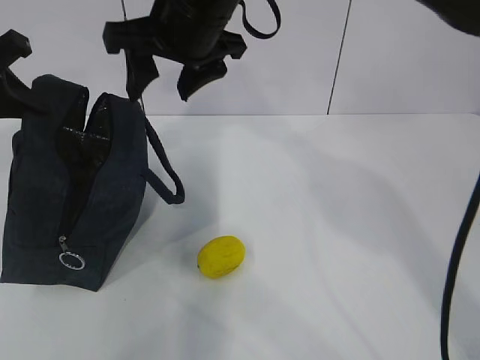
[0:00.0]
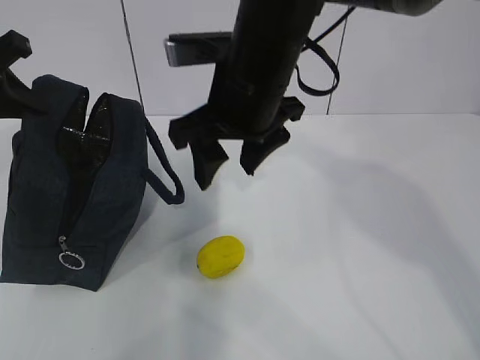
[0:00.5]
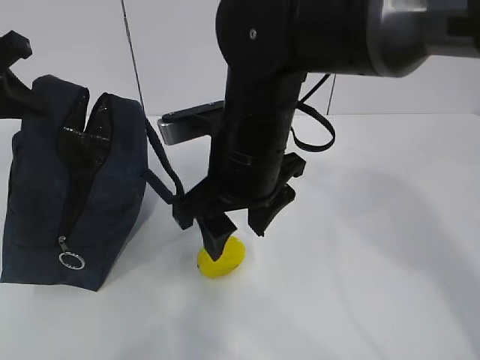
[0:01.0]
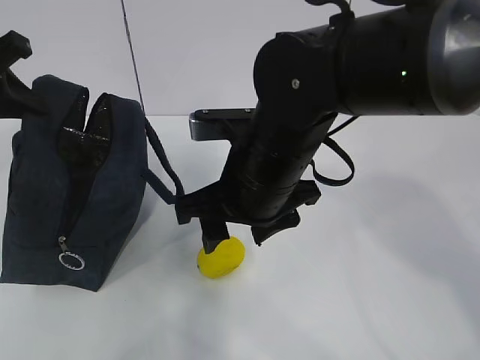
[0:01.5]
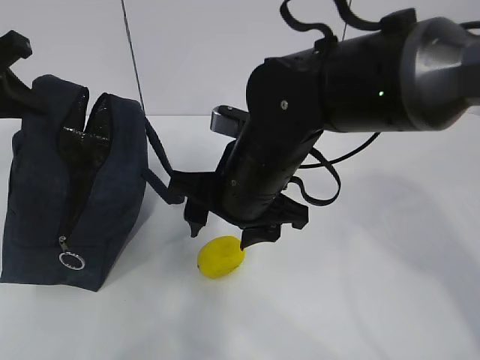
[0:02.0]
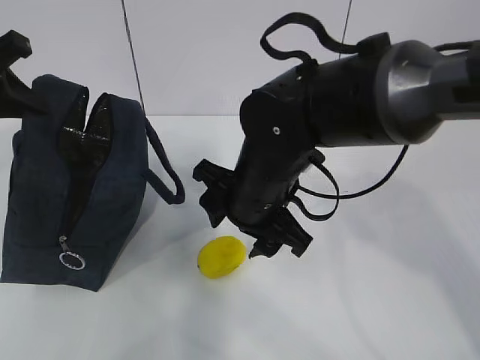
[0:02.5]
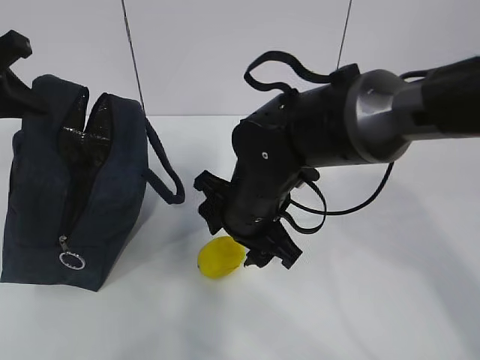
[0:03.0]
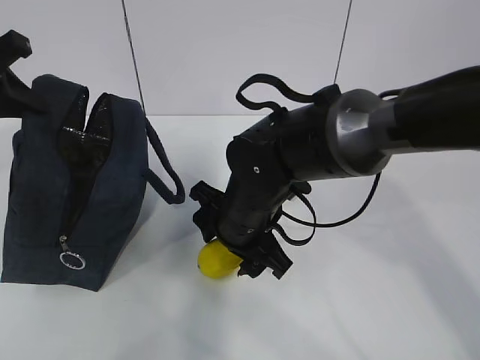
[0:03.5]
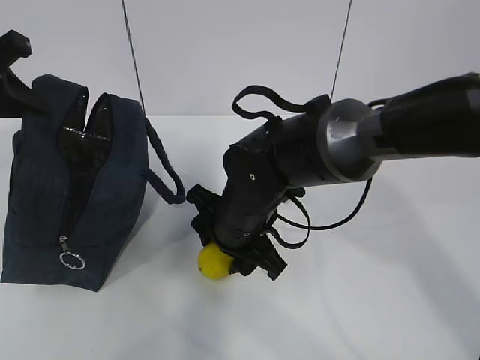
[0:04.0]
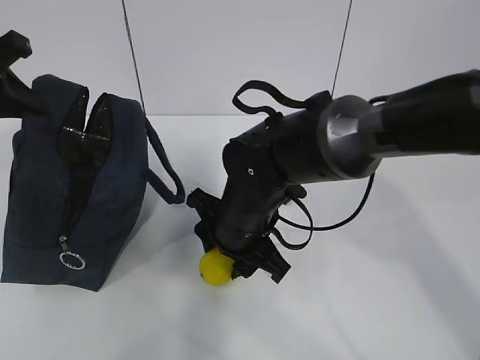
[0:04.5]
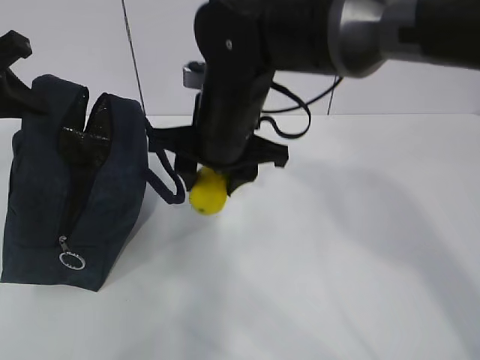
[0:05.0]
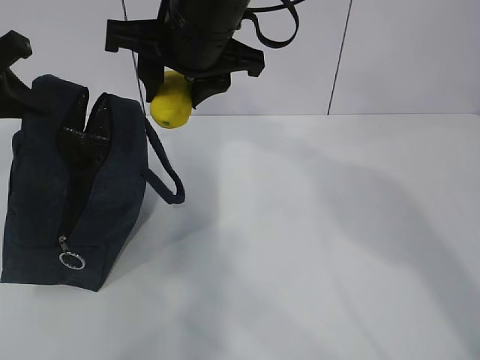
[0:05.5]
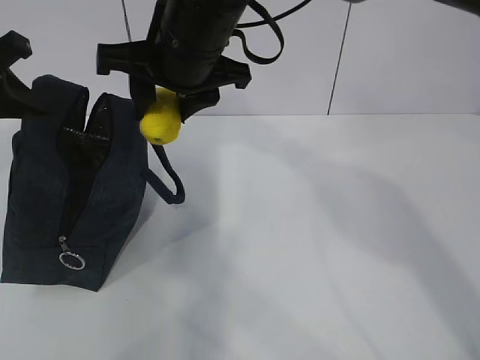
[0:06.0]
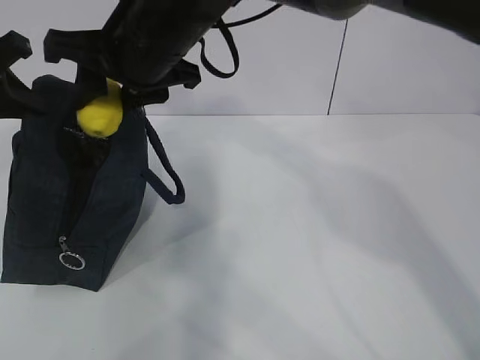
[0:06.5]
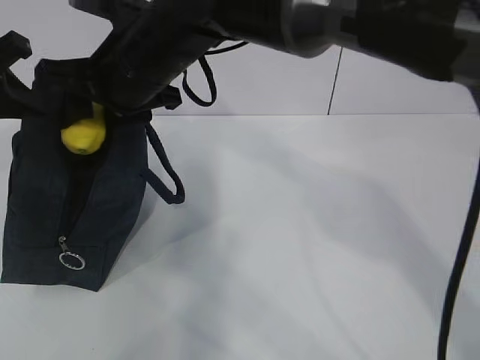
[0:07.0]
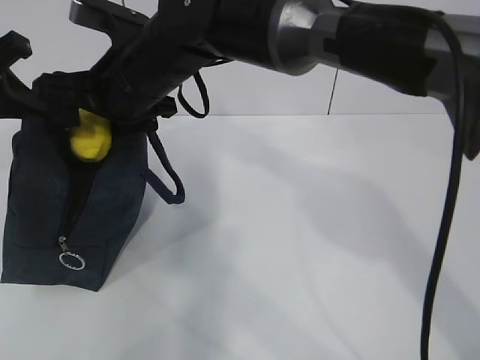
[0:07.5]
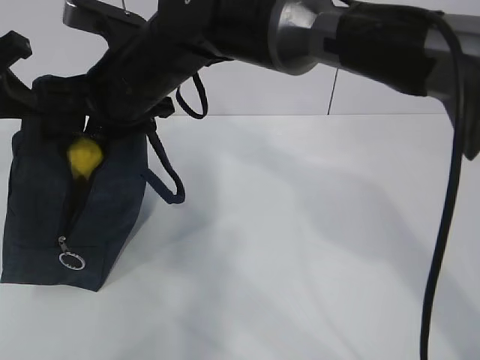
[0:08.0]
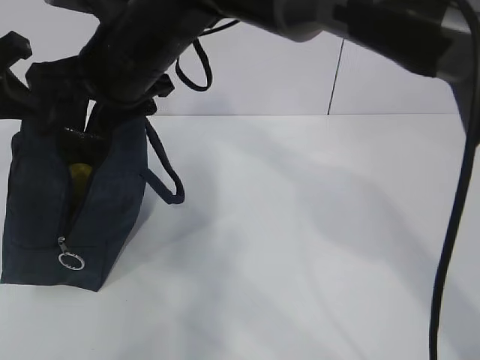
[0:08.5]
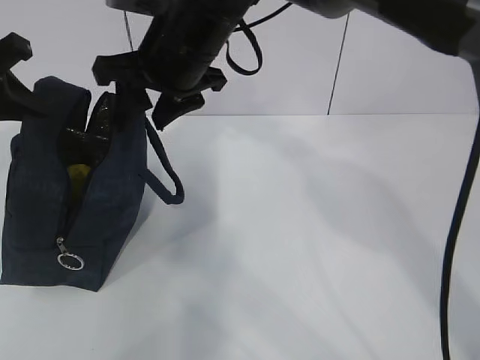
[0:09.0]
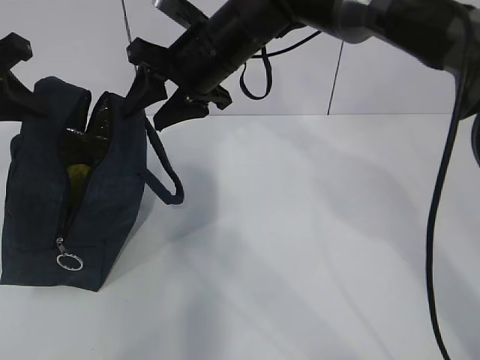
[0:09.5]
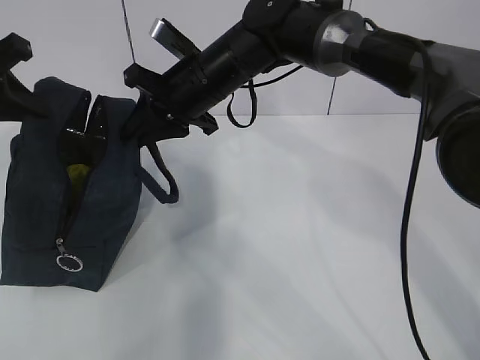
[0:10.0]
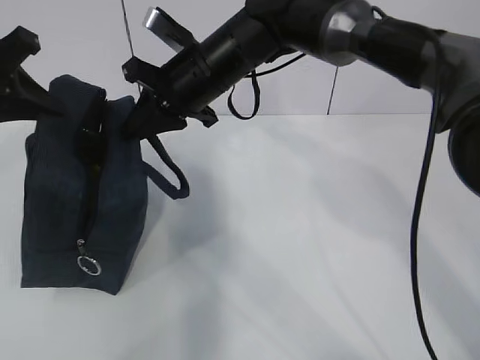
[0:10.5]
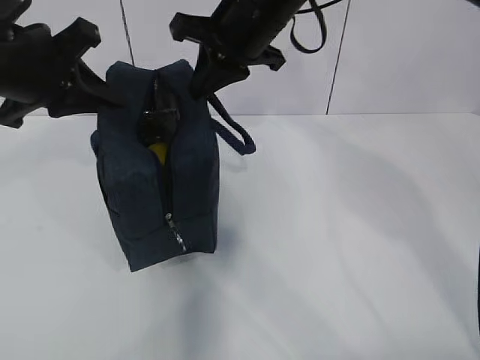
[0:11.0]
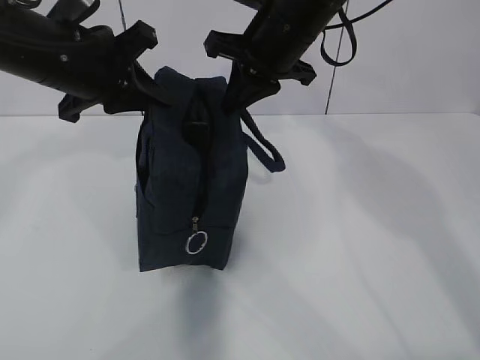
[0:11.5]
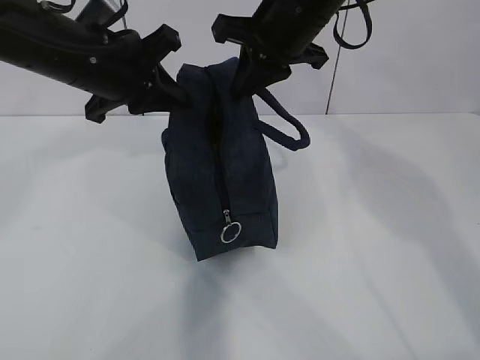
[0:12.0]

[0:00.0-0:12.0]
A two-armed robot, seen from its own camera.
Step, 0:01.5 to 0:02.0: Grab the lunch bag with your right hand.
Step, 0:02.5 to 0:05.0: Move the lunch bag to the right.
0:00.0 to 0:02.0: The right gripper shifts approximately 15 cm downward and backward.
0:02.0 to 0:04.0: The right gripper travels downward by some 5 cm.
0:04.0 to 0:06.0: The right gripper heads upward, covering roughly 20 cm.
0:06.0 to 0:08.0: The right gripper is displaced to the left by roughly 5 cm.
0:08.0 to 0:10.0: The right gripper goes some 10 cm forward and to the right, and closes its fingers.
0:10.0 to 0:12.0: The left gripper goes approximately 15 cm to the right, while the right gripper heads to the right and upward, covering about 15 cm.

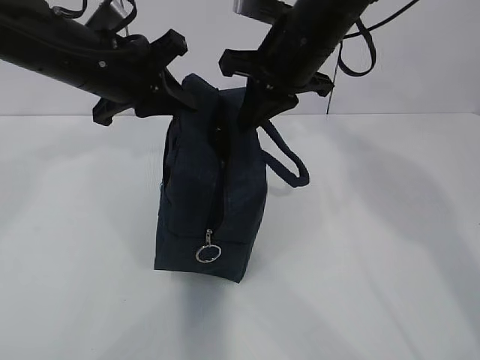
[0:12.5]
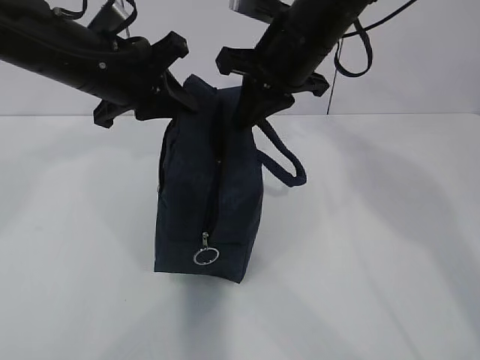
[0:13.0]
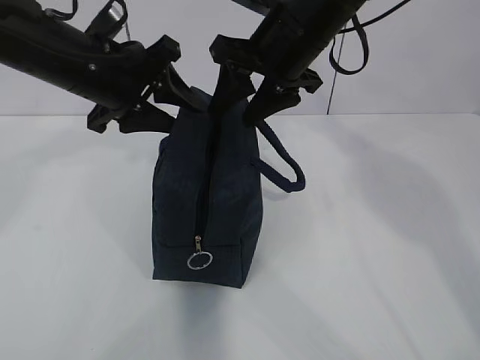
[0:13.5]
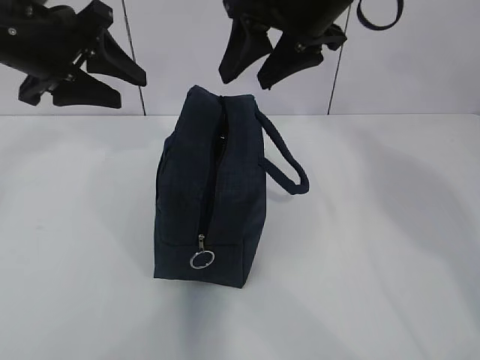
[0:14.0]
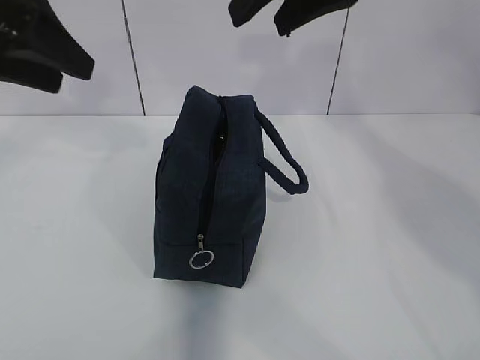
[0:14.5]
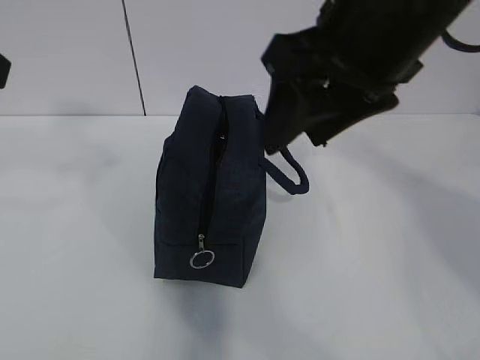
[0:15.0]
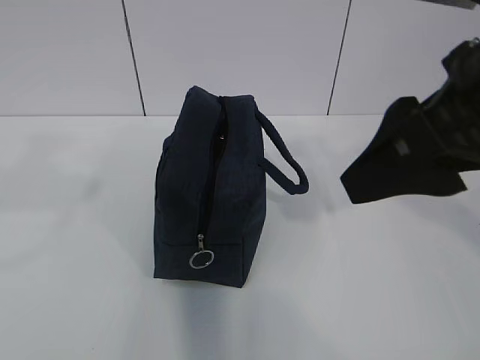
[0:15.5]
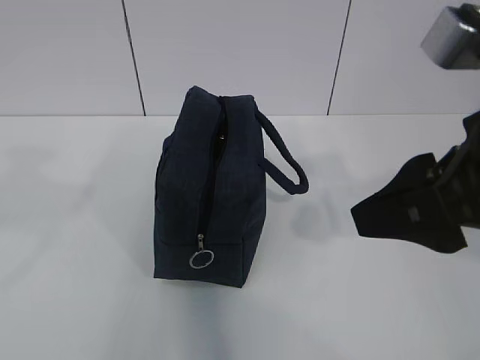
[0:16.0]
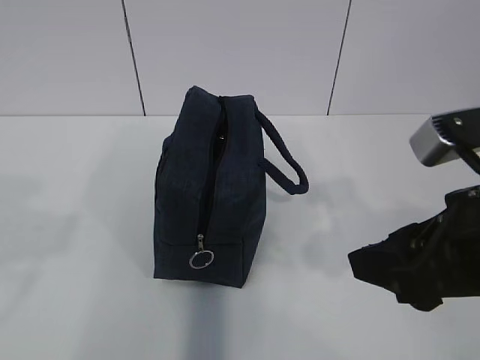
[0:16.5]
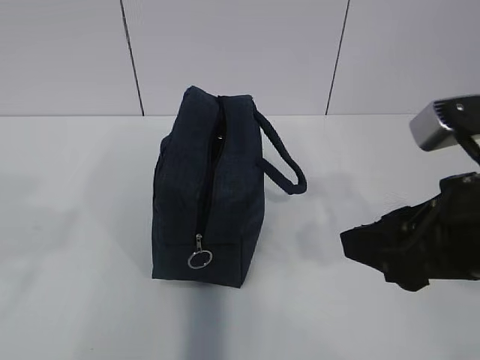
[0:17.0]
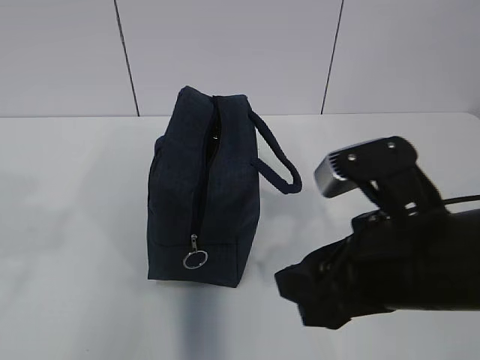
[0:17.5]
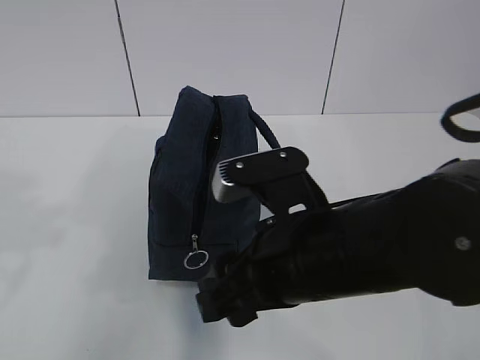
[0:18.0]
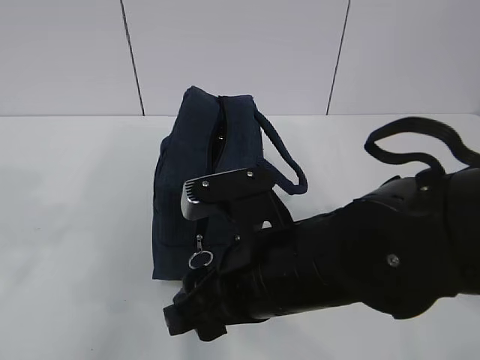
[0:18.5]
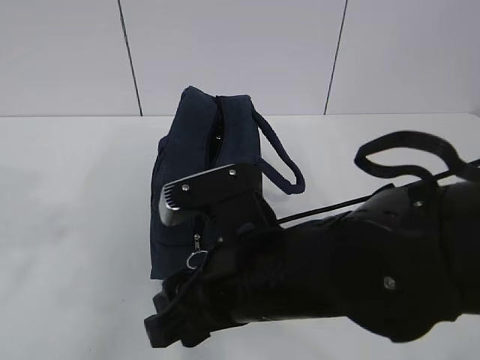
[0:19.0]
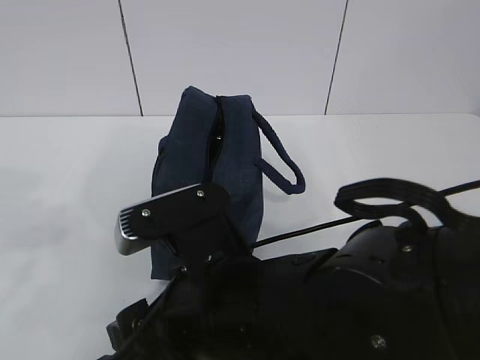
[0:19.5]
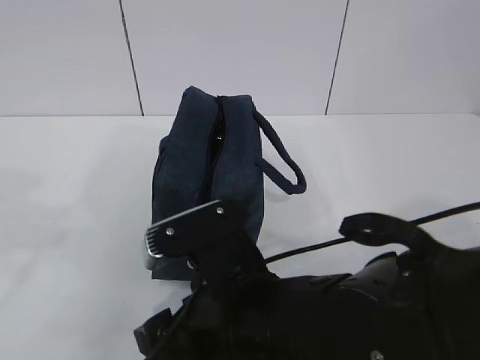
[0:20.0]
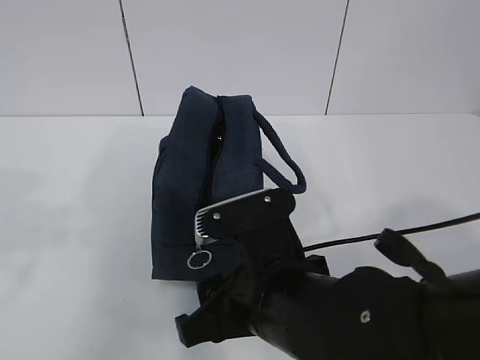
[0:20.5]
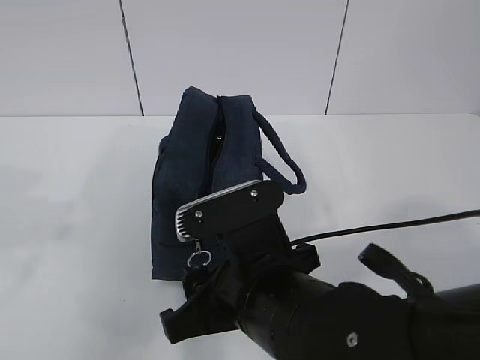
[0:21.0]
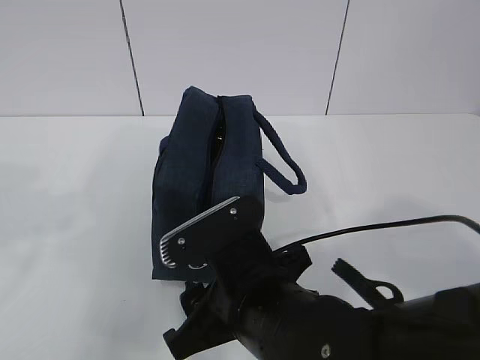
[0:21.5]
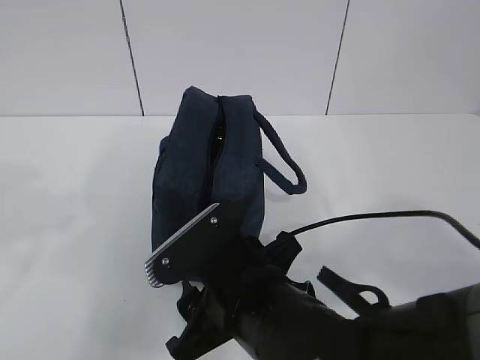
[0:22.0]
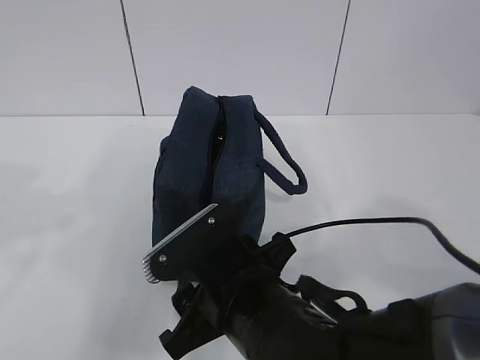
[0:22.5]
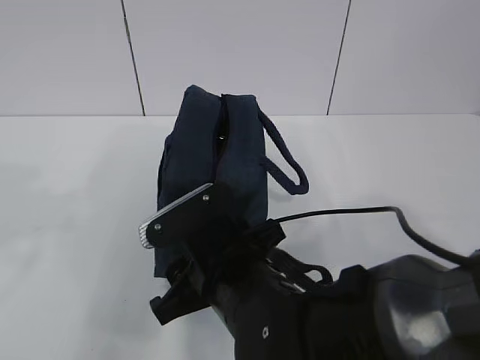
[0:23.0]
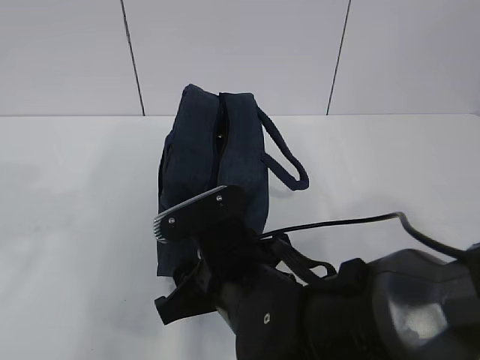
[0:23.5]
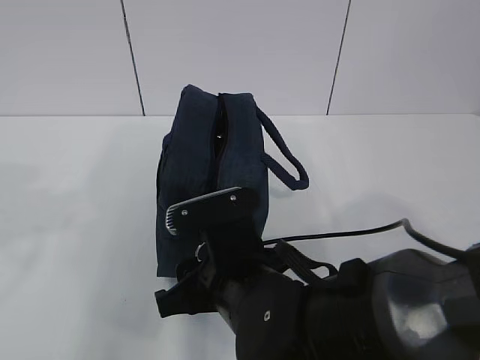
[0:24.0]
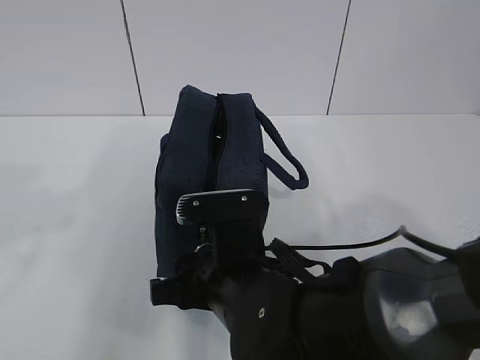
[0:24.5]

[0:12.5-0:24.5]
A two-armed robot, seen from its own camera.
0:12.5 to 0:14.5: The left gripper travels upward, to the left and backward by some 15 cm, and opens, while the right gripper is displaced upward and backward by roughly 15 cm, and opens its fingers.
0:14.5 to 0:16.5: The left gripper heads backward, covering roughly 20 cm. The right gripper shifts some 25 cm downward, backward and to the right.
0:16.5 to 0:18.5: The right gripper moves to the left and downward, some 15 cm.

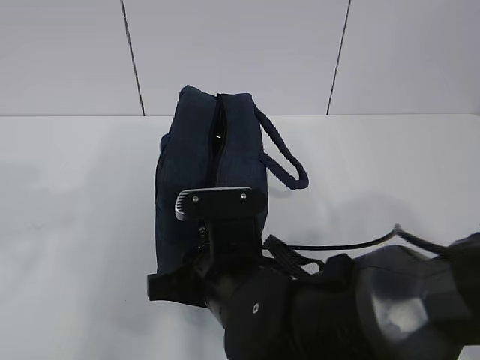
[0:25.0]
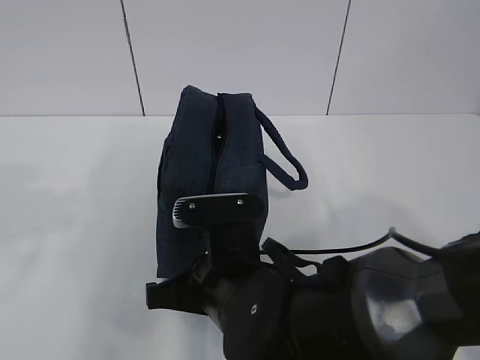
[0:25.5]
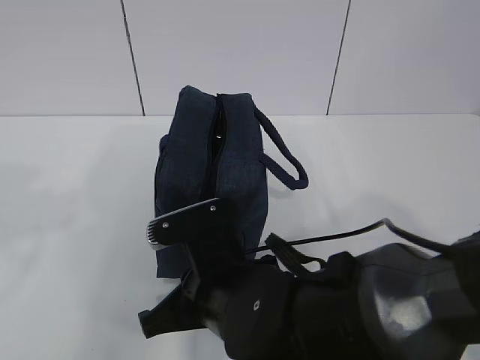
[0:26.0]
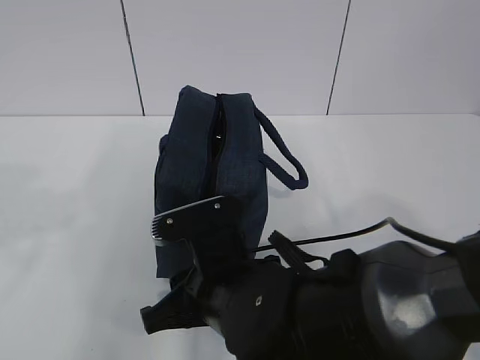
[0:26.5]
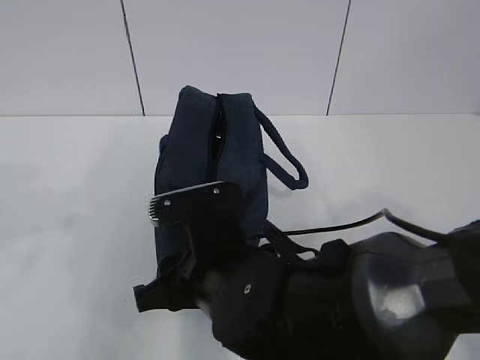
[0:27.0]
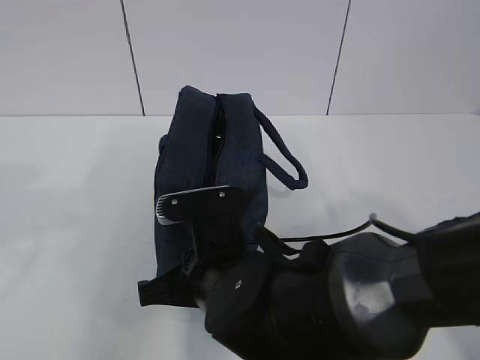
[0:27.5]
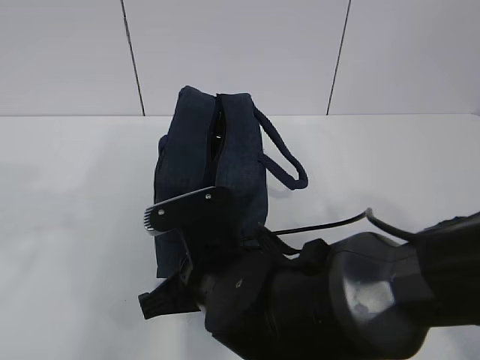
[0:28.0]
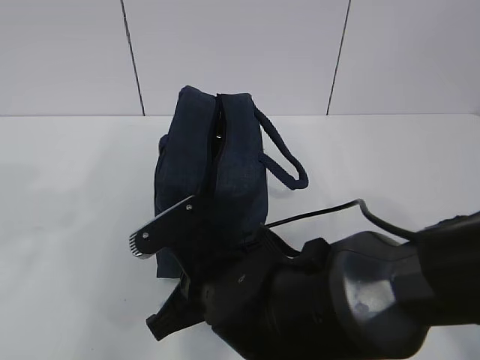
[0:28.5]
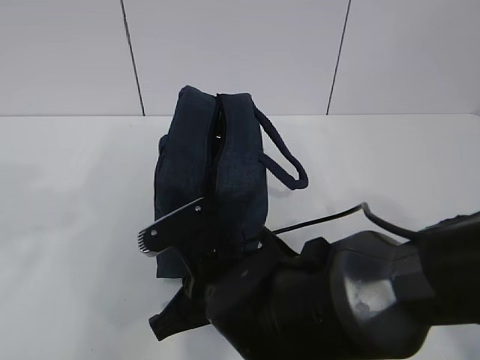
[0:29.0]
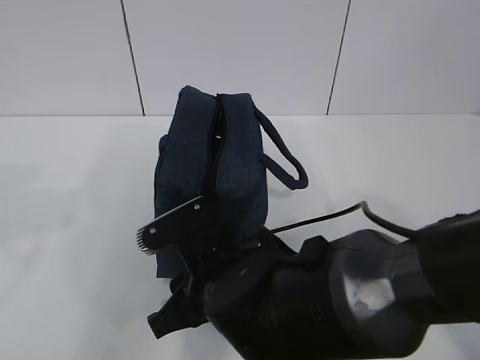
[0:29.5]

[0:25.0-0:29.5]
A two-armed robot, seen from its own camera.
0:25.0 to 0:27.0: The right gripper closes, then opens again.
0:27.0 to 0:29.5: The right gripper closes and opens again.
